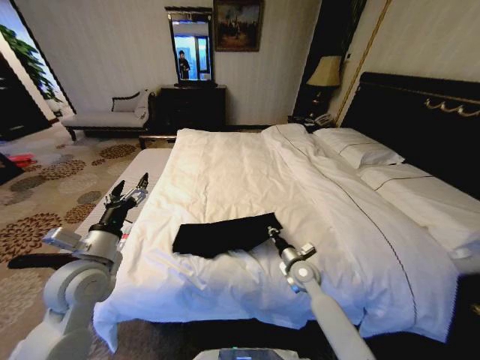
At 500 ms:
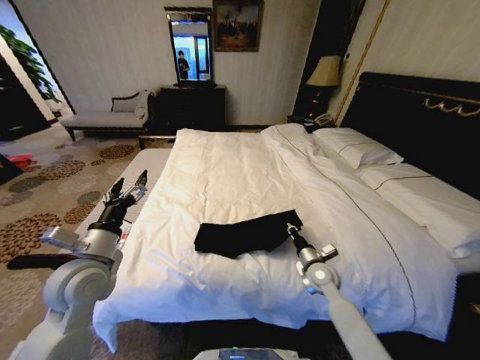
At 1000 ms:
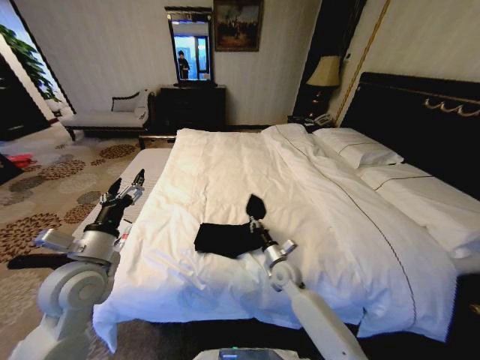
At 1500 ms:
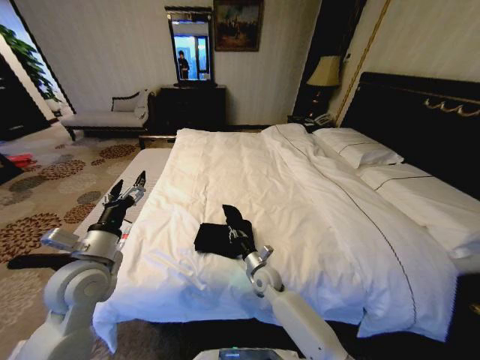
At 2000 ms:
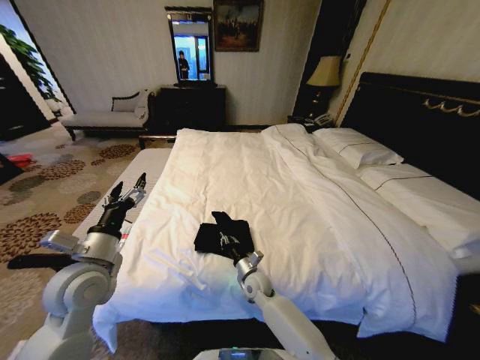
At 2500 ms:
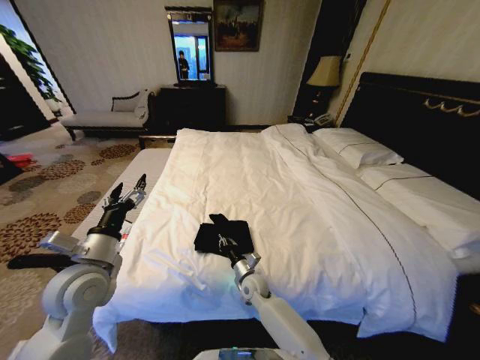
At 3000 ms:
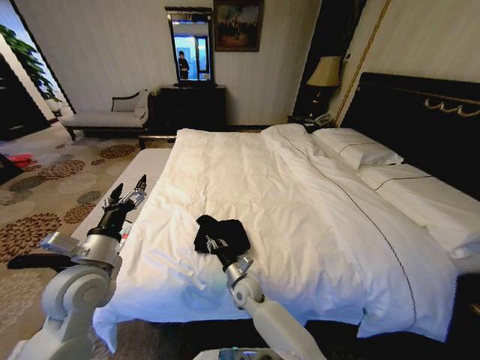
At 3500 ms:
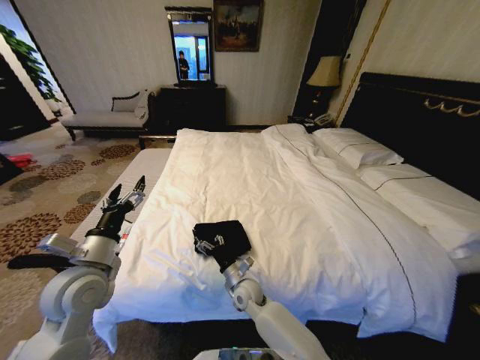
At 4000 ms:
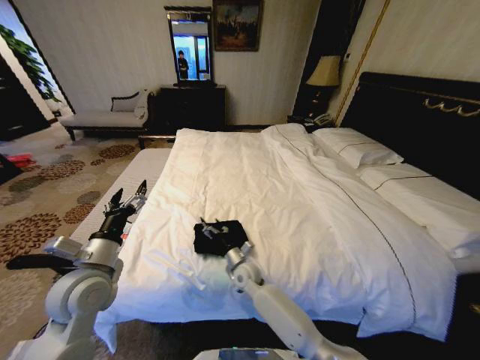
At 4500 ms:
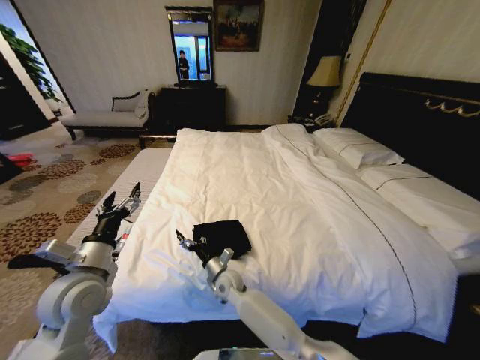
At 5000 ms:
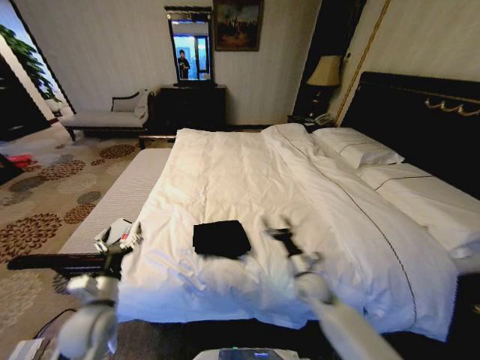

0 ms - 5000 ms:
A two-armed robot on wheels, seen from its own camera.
Task of the whole recording: Fold the clothes on the bed.
0 ms - 2500 ms: The right gripper shifts some 20 cm to the left and downward.
2500 ms - 5000 ms: The right gripper goes about 20 cm to the right and upward, and opens its fingers. Meanwhile the left gripper moves downward, about 15 cm.

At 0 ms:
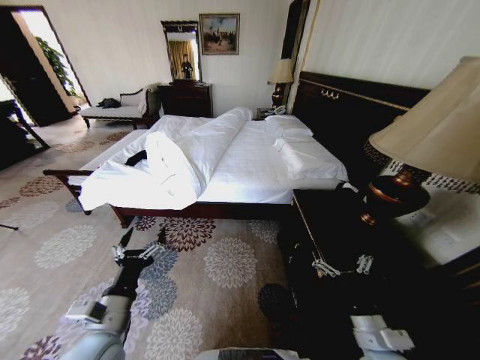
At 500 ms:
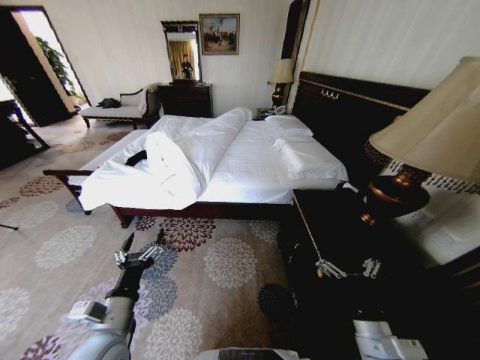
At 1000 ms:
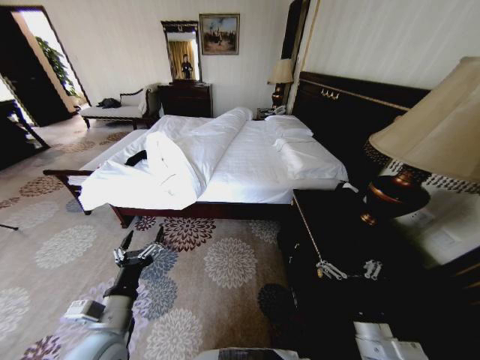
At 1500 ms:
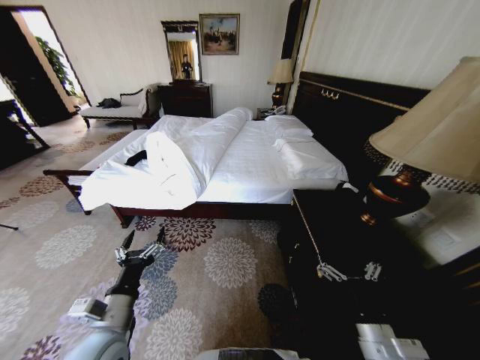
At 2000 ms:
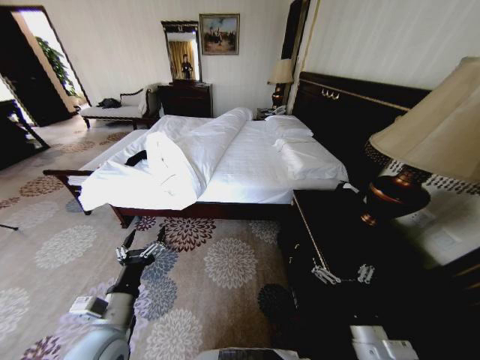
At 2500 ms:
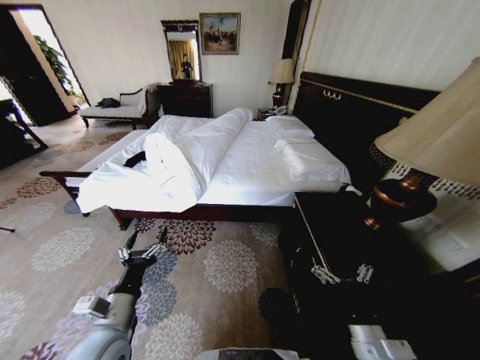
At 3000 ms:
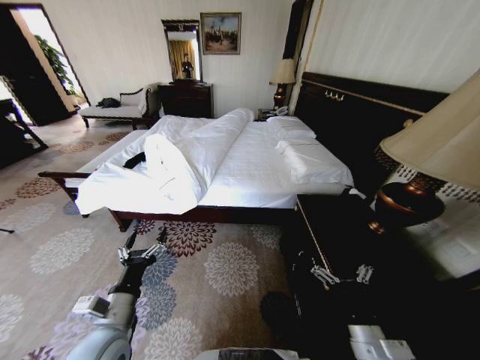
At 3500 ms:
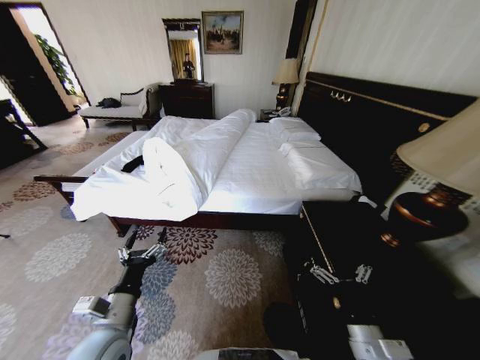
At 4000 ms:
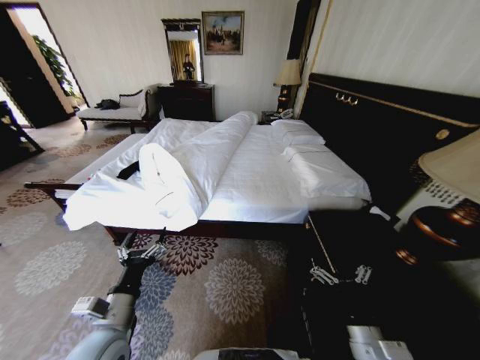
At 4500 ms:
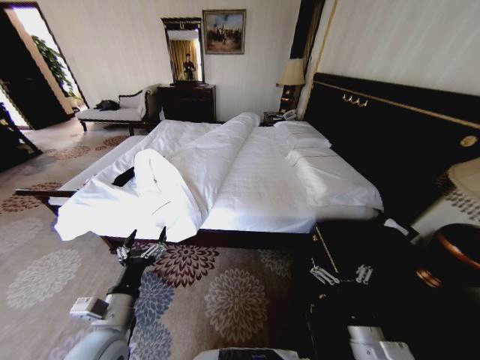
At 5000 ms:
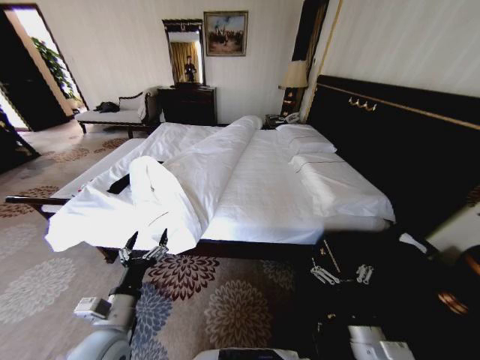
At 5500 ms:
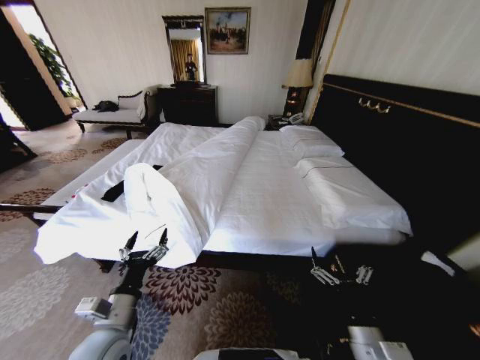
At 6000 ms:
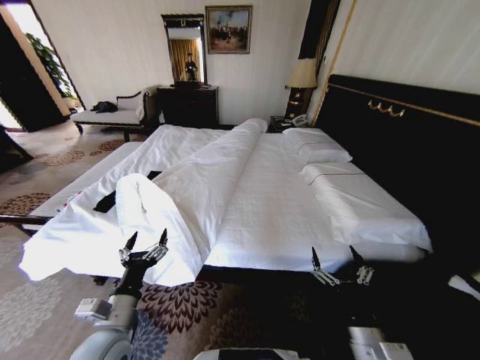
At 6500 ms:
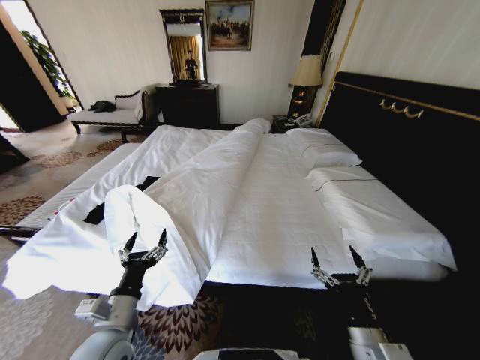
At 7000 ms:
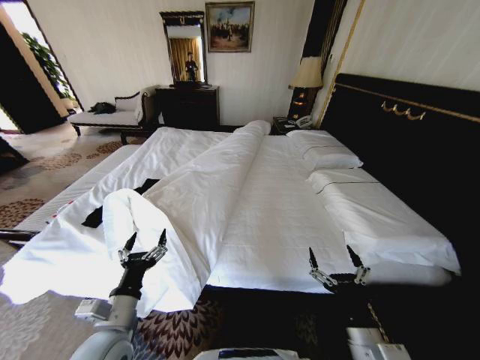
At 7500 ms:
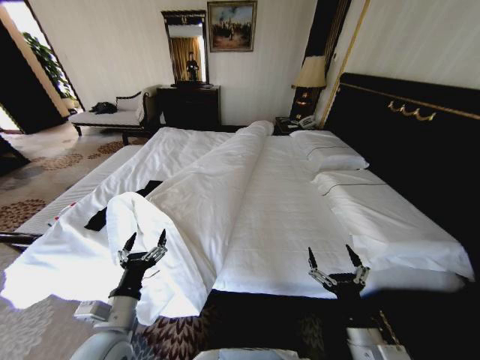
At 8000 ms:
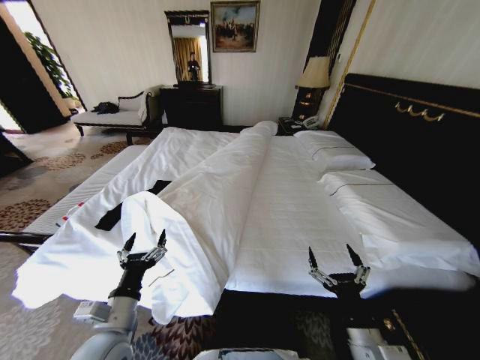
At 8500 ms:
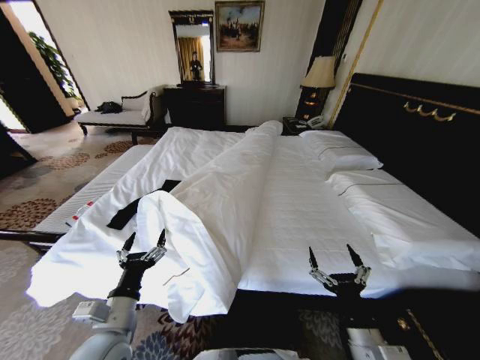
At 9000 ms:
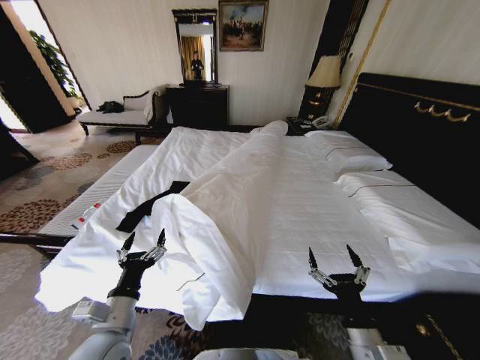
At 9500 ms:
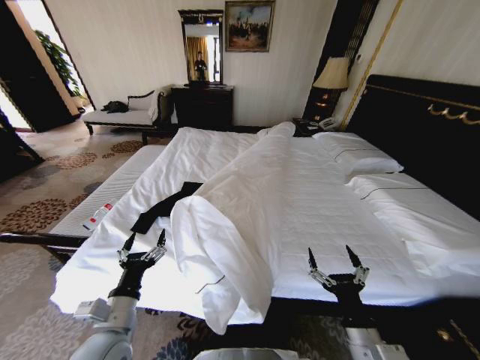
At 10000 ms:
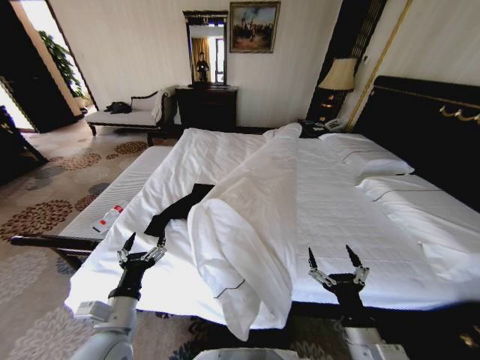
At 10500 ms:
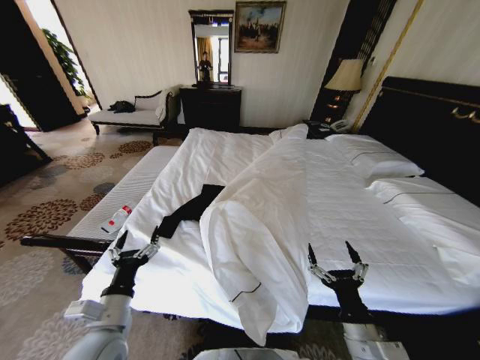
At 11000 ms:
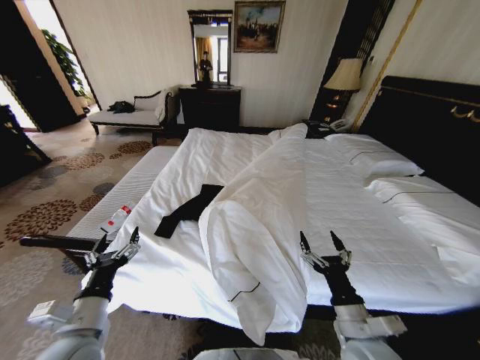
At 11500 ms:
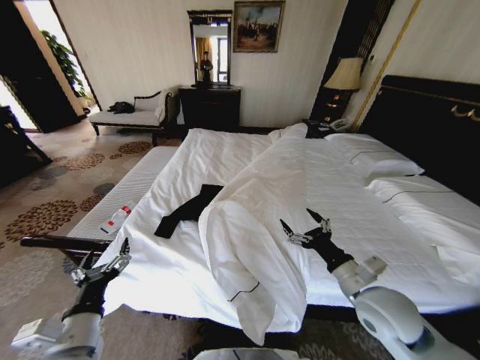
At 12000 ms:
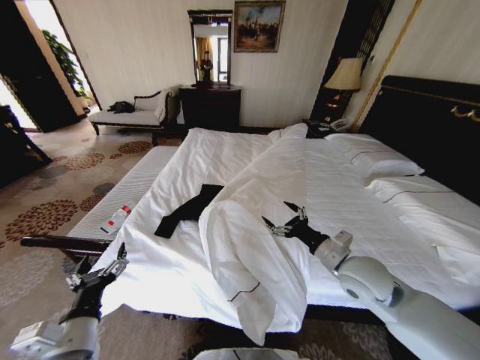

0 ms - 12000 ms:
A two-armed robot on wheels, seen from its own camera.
Task of the whole recording: Fold the clothes on the bed.
10000 ms - 12000 ms: The left gripper changes place by approximately 5 cm. The right gripper travels forward and upward by roughly 20 cm.

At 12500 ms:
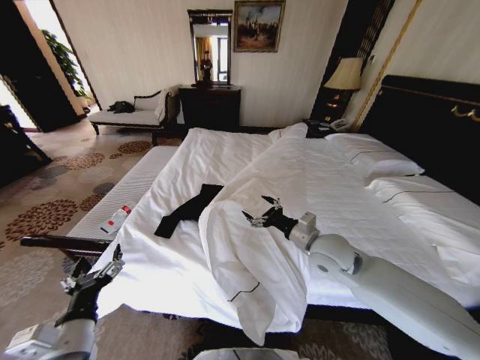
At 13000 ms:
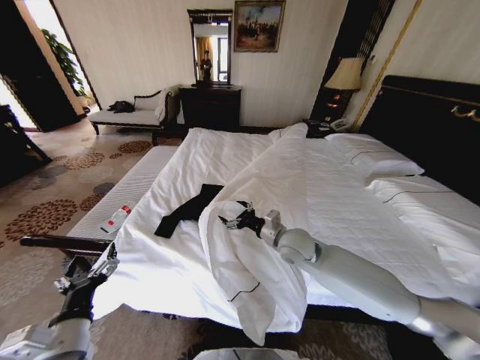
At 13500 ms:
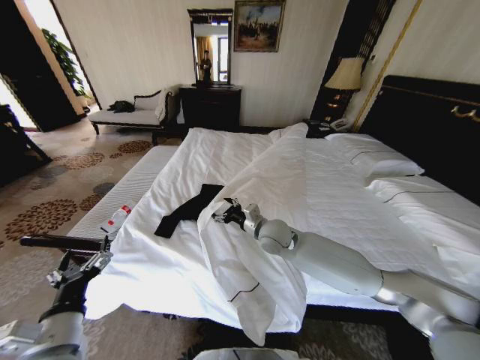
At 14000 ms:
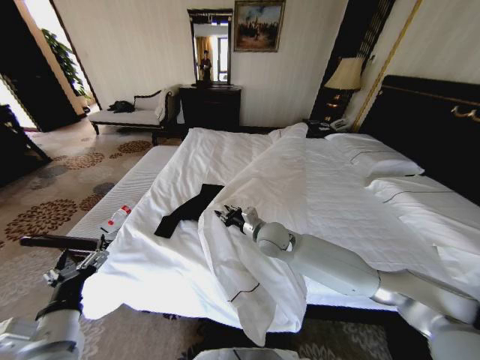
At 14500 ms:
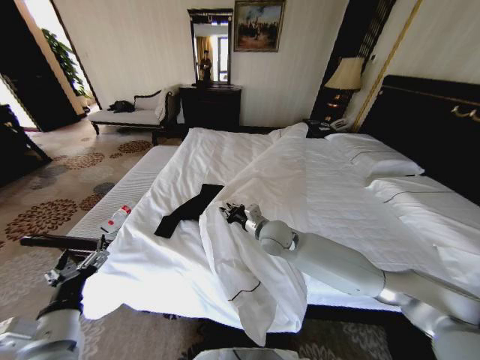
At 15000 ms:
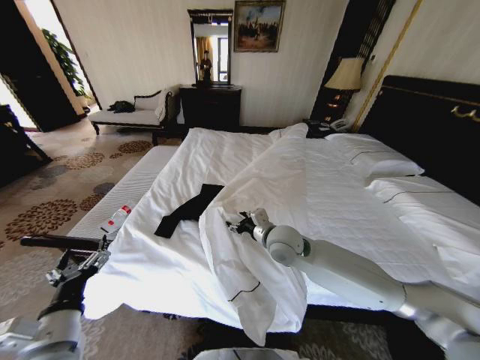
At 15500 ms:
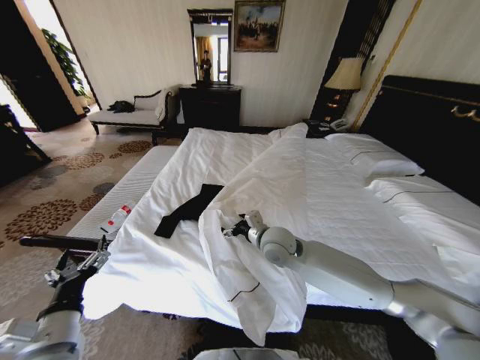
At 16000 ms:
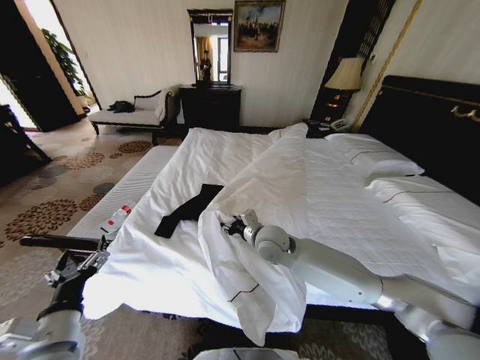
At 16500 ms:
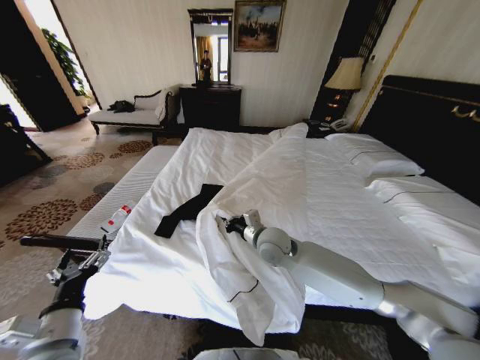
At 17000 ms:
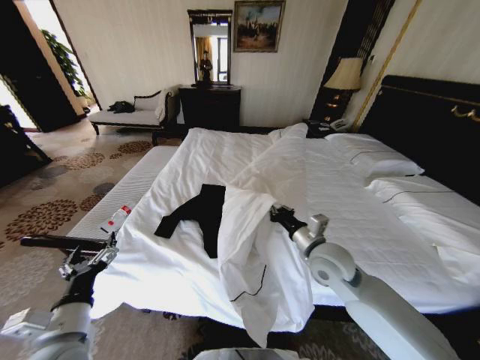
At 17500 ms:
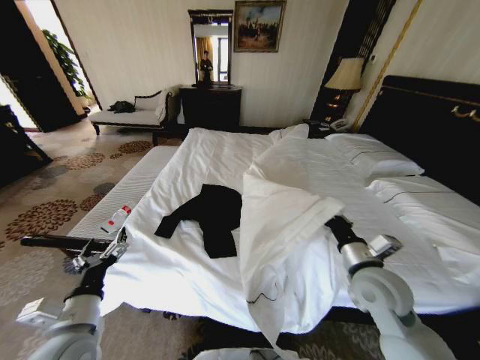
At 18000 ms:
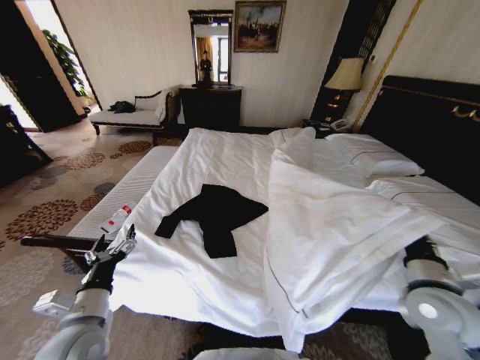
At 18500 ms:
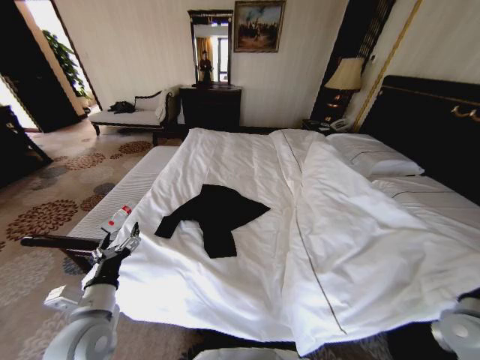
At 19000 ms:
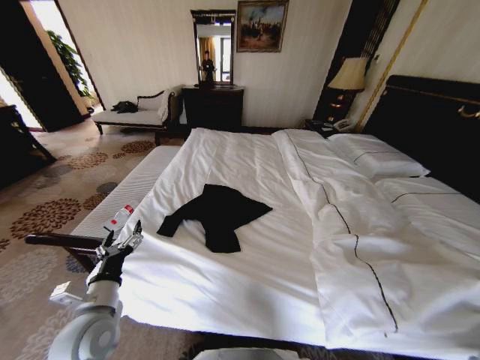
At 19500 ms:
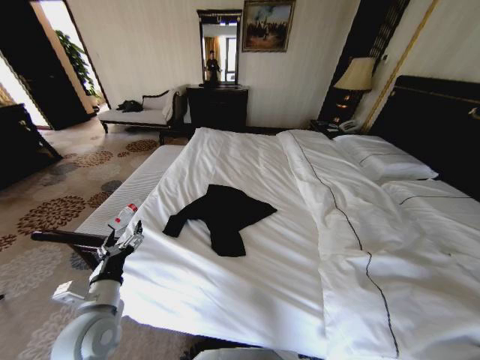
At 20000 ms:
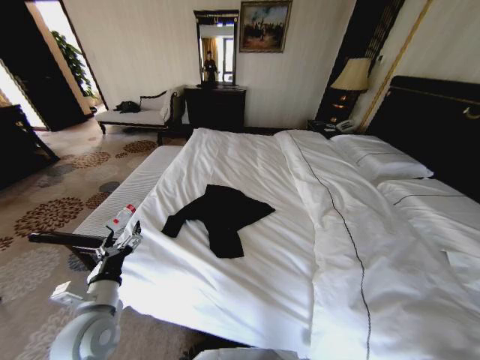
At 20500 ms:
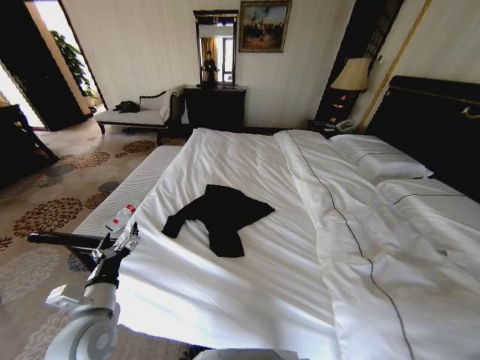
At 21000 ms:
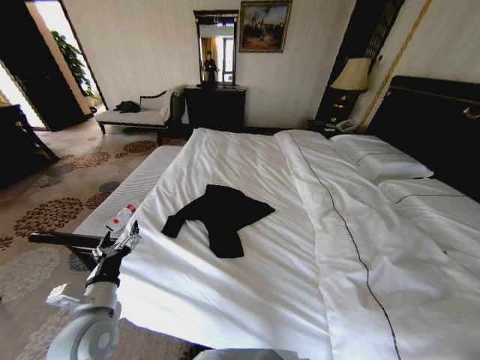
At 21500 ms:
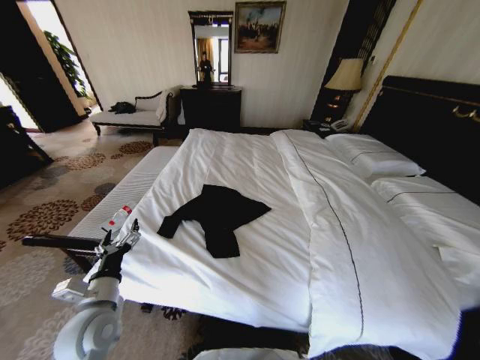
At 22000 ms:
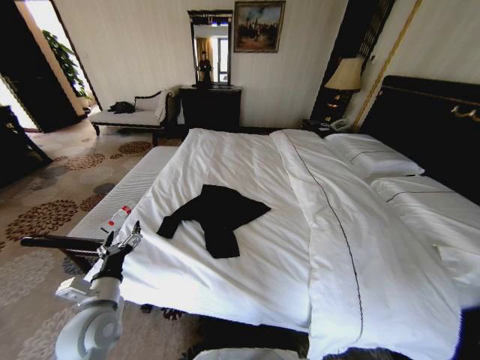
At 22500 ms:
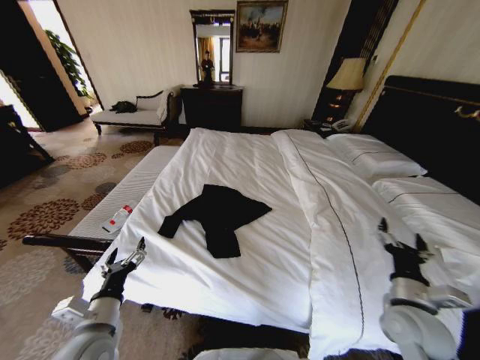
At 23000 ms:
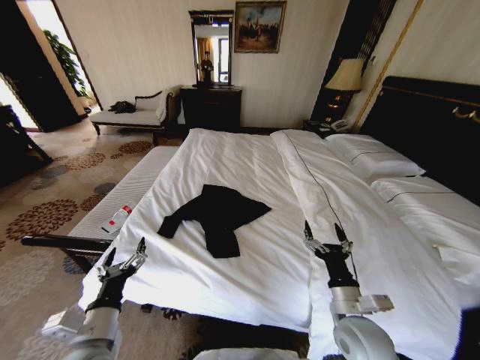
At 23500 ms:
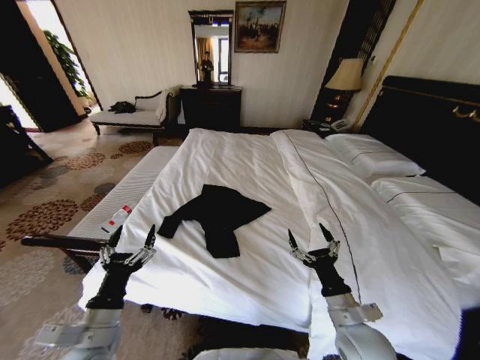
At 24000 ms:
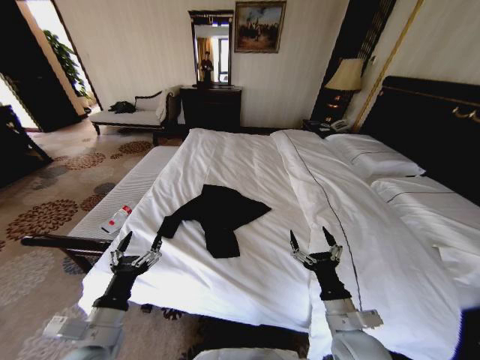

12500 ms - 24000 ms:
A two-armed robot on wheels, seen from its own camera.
Task of the whole recording: Fold the clothes on the bed.
12500 ms - 14500 ms: The right gripper heads to the left and forward, covering roughly 15 cm, and closes its fingers.
14500 ms - 16500 ms: The right gripper opens and closes again.
16500 ms - 18500 ms: The left gripper travels forward by about 5 cm; the right gripper travels to the right and backward by roughly 40 cm.
18500 ms - 20000 ms: The right gripper is displaced downward, backward and to the right by approximately 25 cm, and opens up.
20000 ms - 22000 ms: The right gripper heads upward, covering some 15 cm, and opens.
22000 ms - 24000 ms: The left gripper shifts roughly 5 cm backward. Meanwhile the right gripper travels to the left by about 30 cm.
